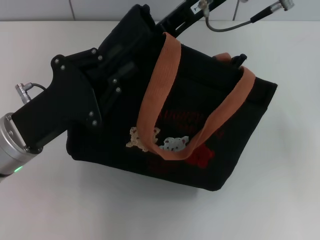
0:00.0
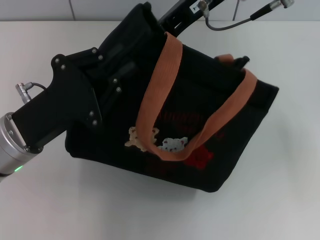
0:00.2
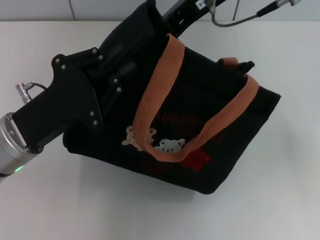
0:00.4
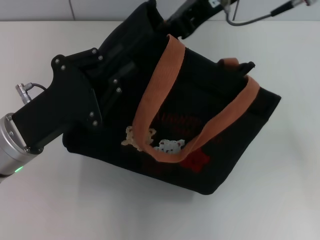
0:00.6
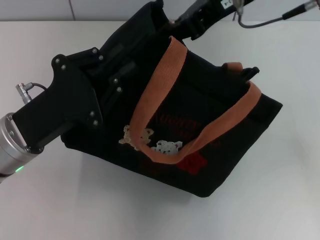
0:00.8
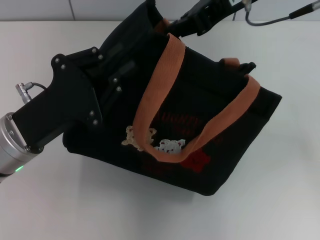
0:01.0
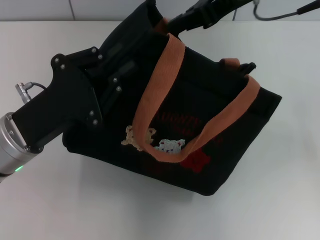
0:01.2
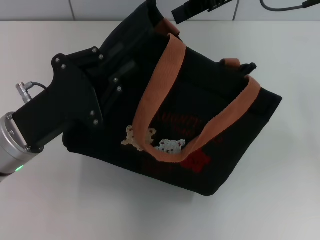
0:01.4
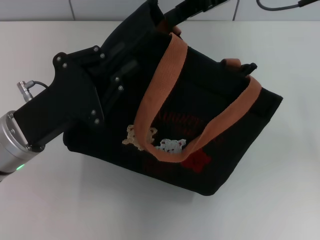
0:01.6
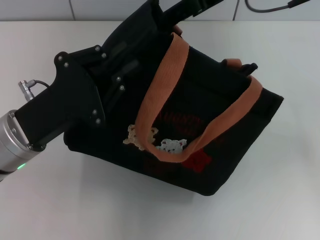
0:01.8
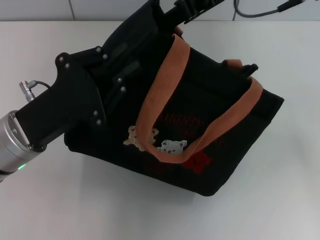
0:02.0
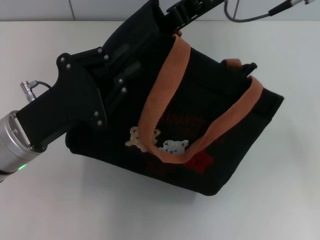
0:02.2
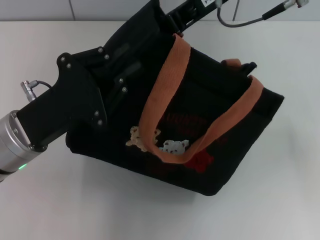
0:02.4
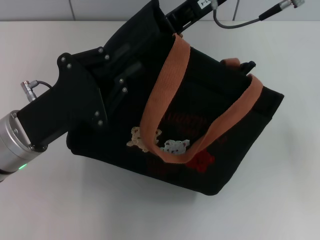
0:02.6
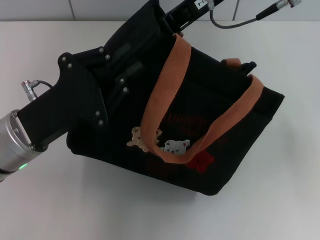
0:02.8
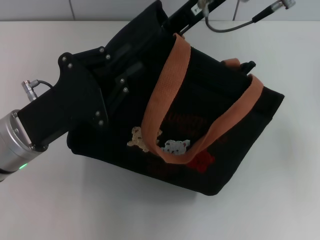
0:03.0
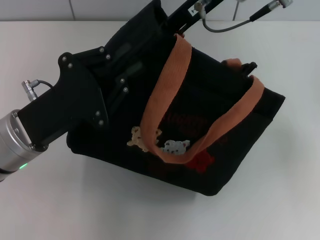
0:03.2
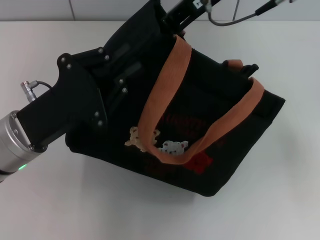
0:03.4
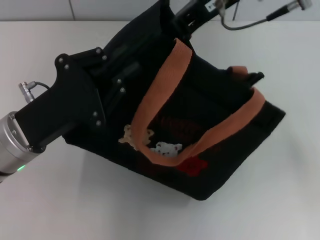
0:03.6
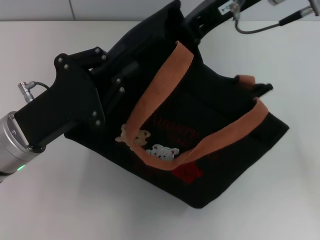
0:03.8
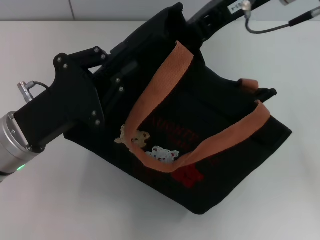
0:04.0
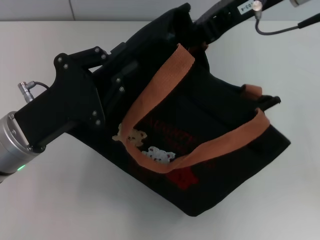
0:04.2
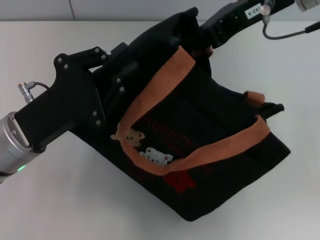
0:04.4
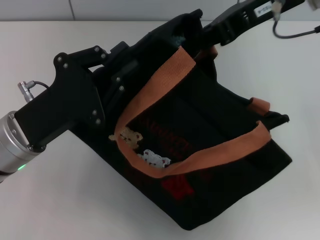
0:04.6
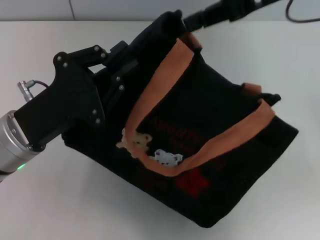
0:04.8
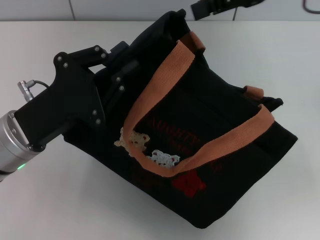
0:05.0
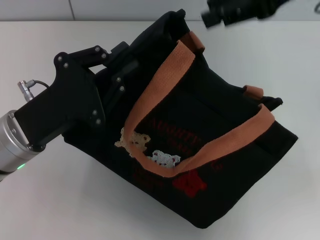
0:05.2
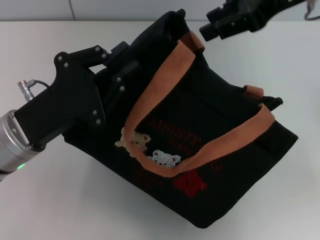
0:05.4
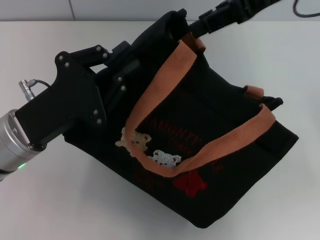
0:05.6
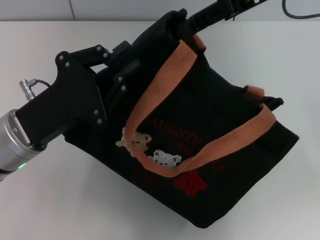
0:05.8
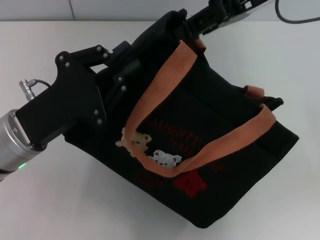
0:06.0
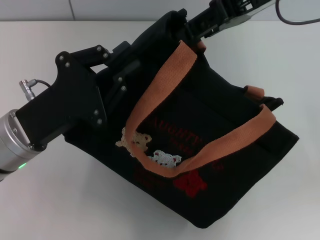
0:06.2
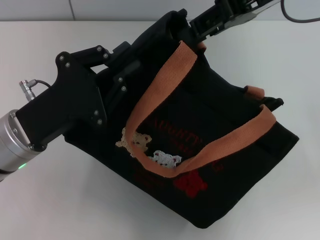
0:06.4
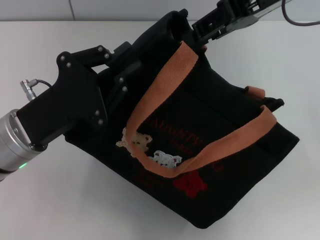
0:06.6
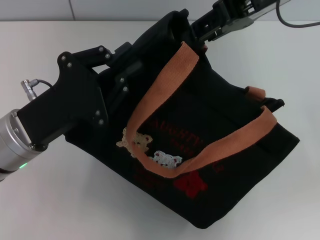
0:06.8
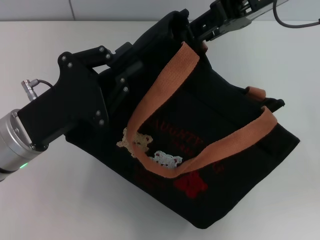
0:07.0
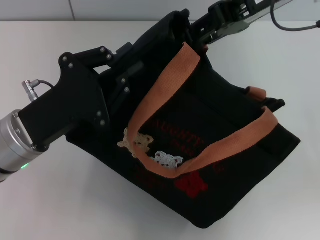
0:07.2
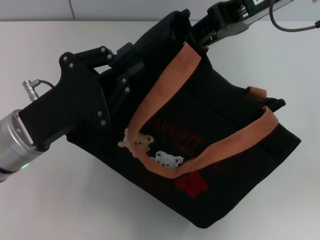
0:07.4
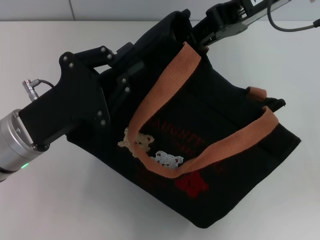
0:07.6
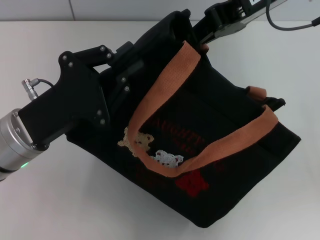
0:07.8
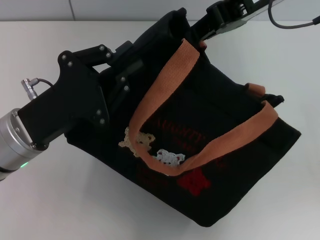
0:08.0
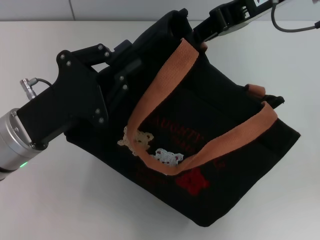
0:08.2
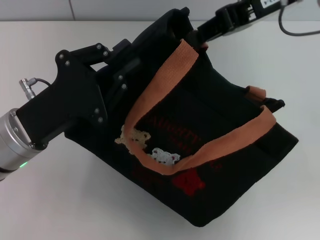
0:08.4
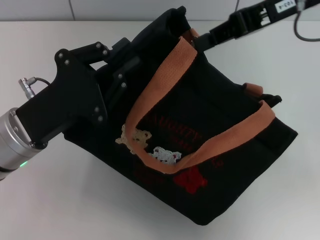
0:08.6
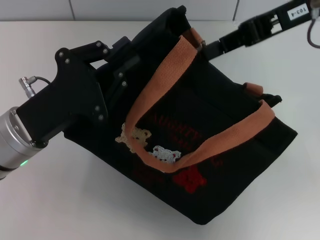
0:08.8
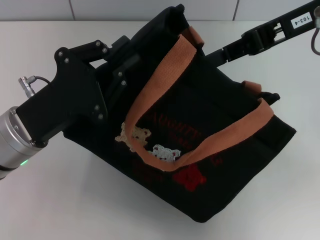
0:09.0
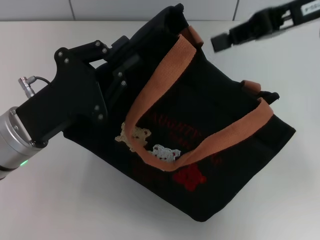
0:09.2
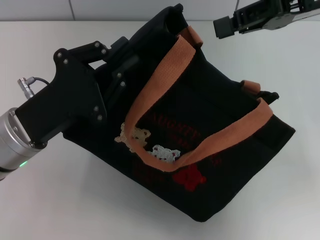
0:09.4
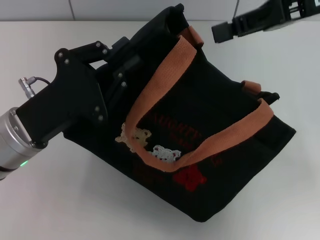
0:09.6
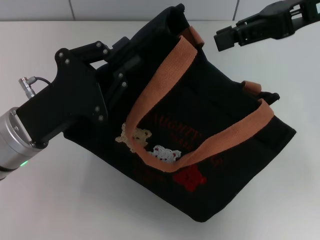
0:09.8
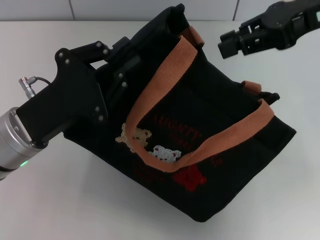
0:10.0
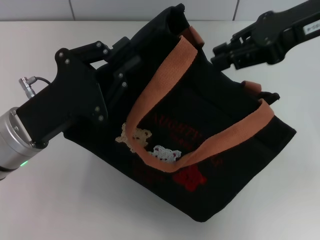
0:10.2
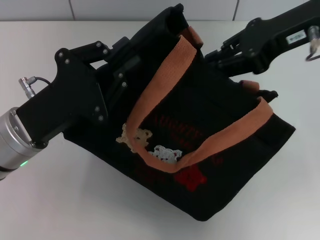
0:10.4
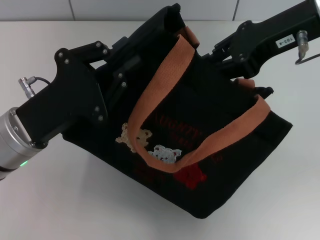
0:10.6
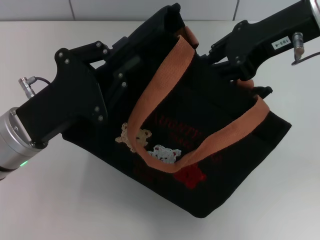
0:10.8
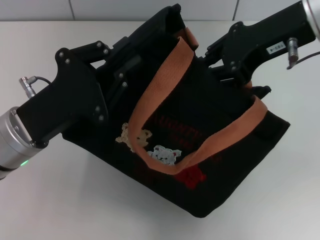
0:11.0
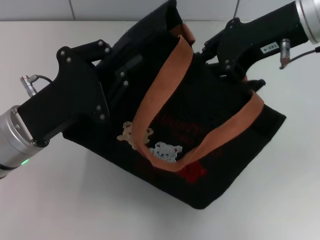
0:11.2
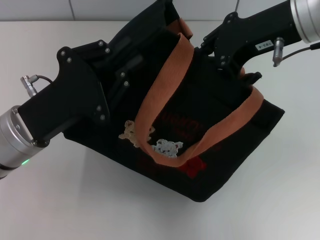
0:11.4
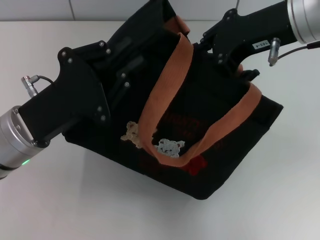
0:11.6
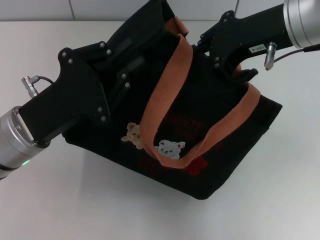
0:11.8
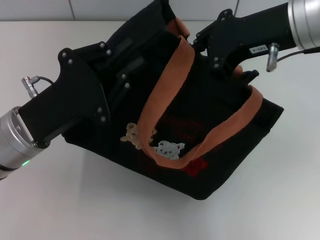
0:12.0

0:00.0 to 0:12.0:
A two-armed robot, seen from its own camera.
0:00.0 to 0:01.6: The right gripper shifts roughly 5 cm to the right.
0:01.6 to 0:03.0: The right gripper is displaced to the left by some 5 cm.
0:03.0 to 0:04.4: The right gripper travels to the right by some 5 cm.
0:04.4 to 0:06.0: The right gripper opens up.
0:06.0 to 0:07.6: The grippers stay close to where they were, moving slightly.
0:07.6 to 0:09.0: The right gripper moves about 5 cm.

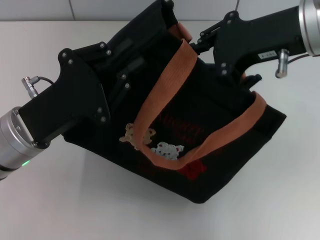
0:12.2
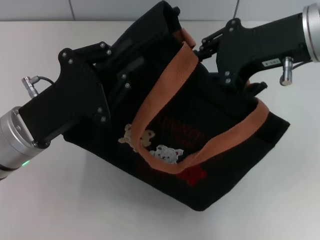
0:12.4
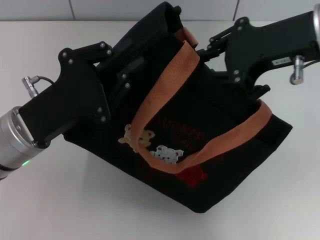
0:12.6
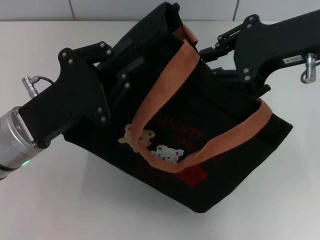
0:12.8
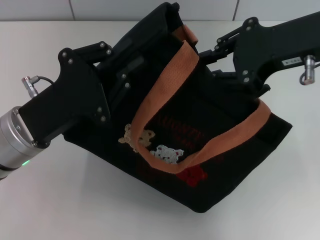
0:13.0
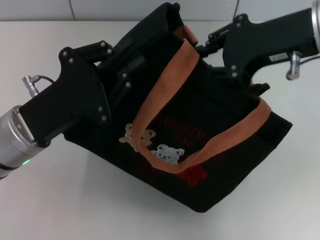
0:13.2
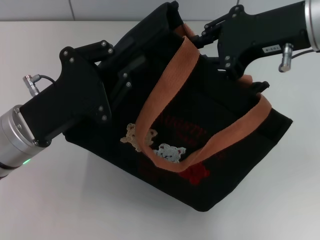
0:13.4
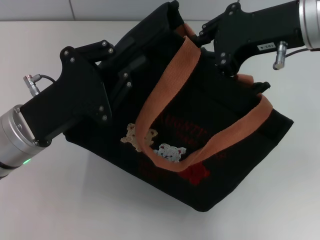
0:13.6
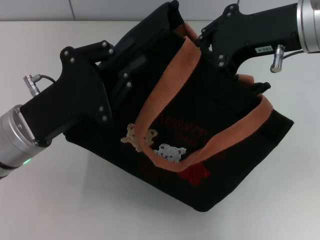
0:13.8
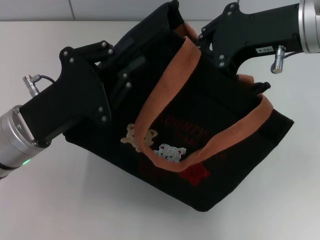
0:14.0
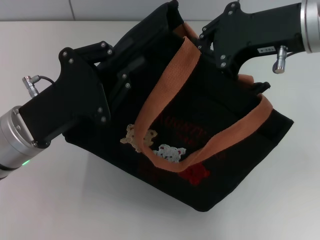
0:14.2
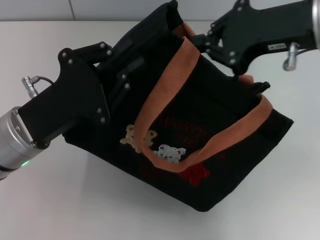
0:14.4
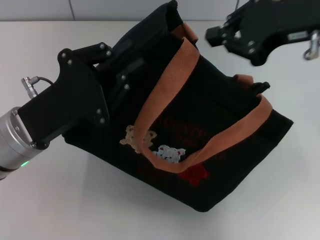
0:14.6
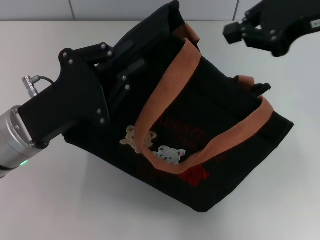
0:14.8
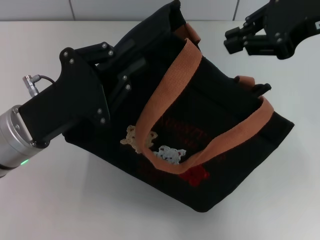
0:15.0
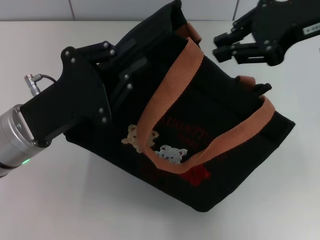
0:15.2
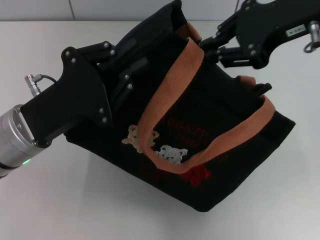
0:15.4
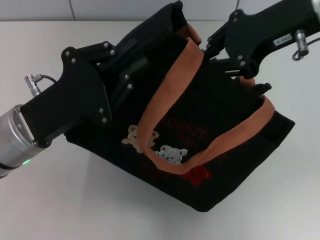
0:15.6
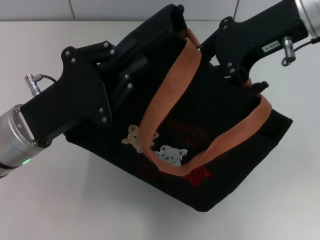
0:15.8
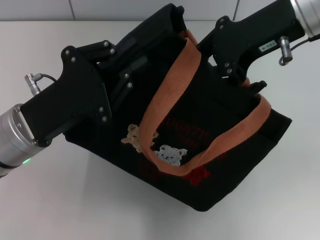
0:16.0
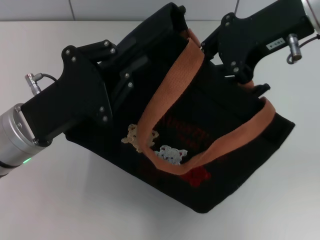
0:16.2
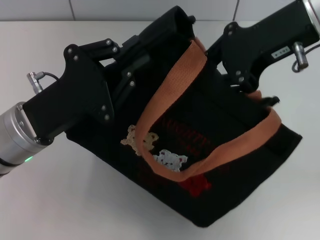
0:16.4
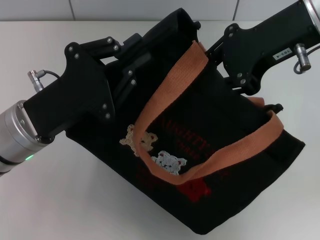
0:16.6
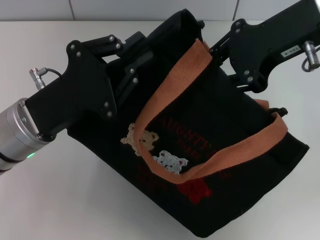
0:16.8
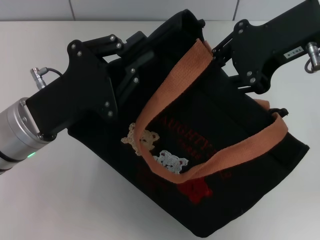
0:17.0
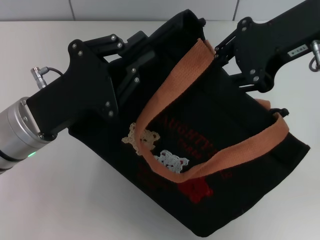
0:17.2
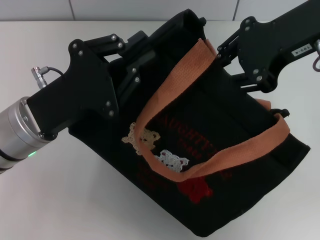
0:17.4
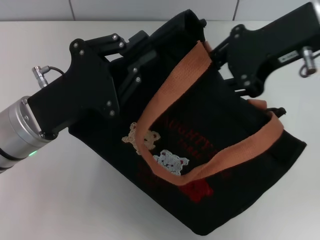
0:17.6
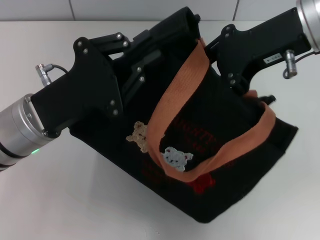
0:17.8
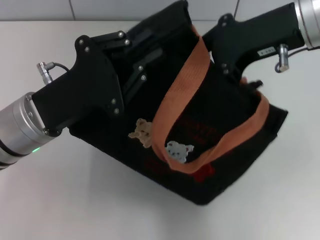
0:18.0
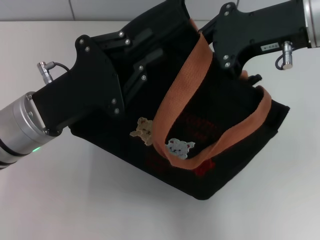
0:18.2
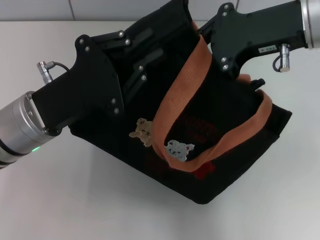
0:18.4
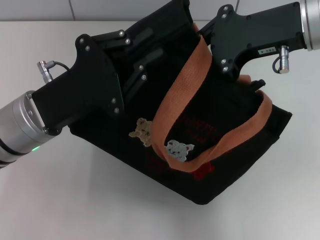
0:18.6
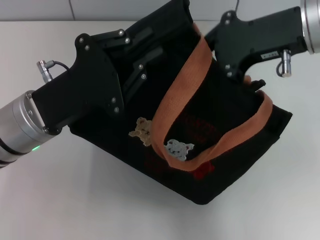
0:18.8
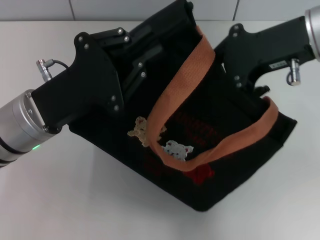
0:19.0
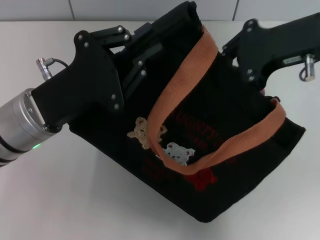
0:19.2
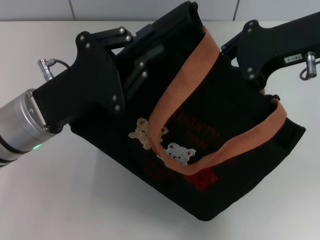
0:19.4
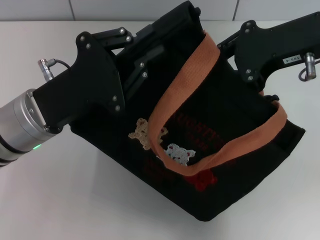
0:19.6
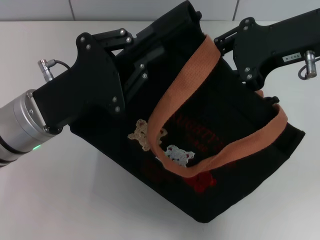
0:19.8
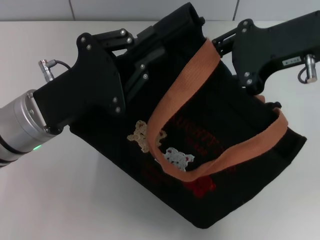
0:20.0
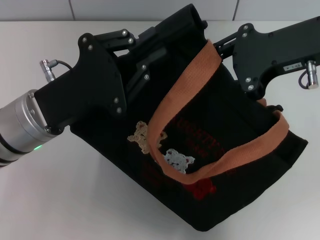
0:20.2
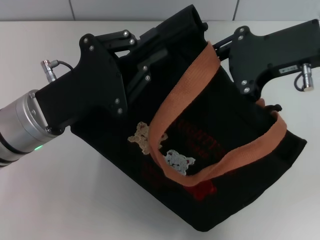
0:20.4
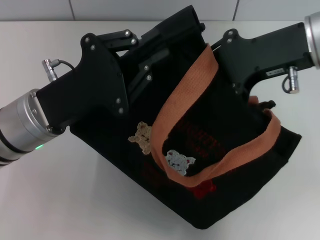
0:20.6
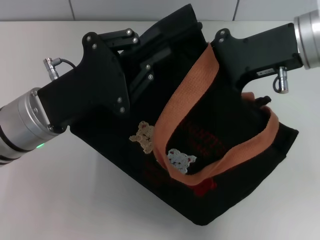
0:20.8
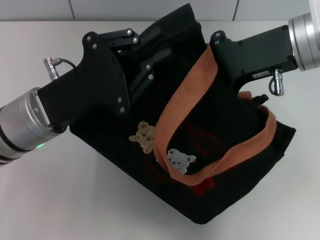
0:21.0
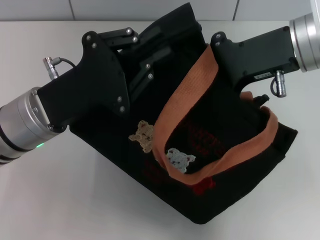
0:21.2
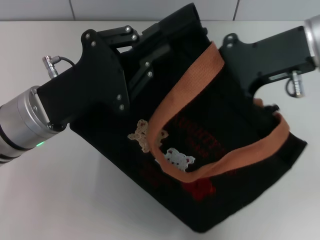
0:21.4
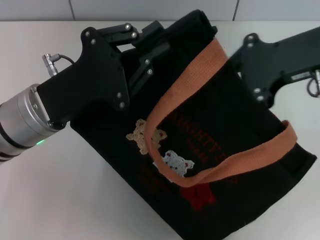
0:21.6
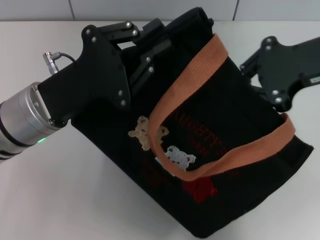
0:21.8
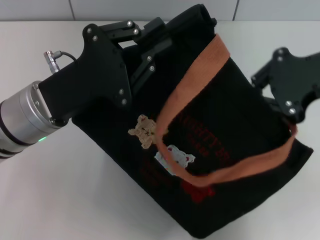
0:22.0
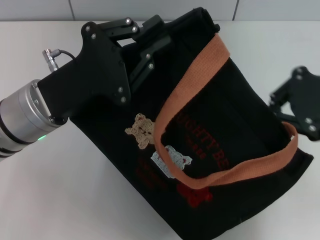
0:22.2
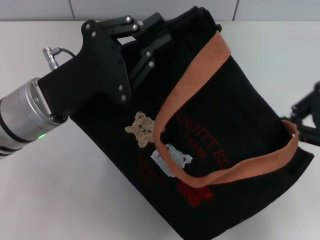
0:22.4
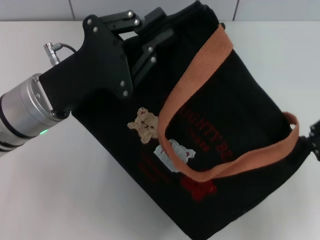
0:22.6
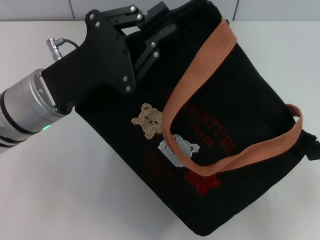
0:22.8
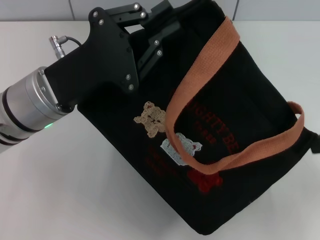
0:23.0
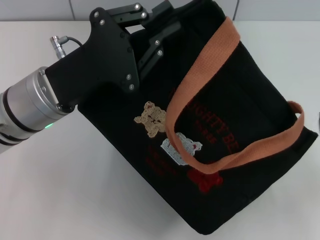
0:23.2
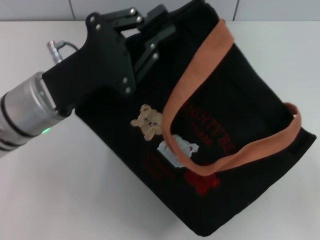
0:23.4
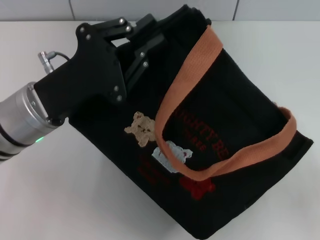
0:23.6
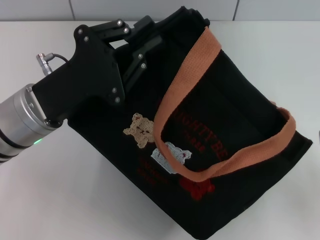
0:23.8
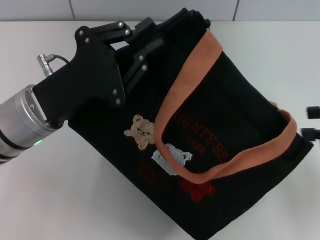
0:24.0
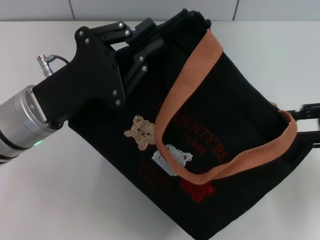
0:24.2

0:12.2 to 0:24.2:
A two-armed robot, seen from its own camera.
Step, 0:12.2 to 0:23.0: Pull open the zipper with your right hand.
0:12.2 to 0:13.8: The grippers stay close to where they were, moving slightly.
0:13.8 to 0:15.2: The right gripper changes place by some 5 cm.
0:19.8 to 0:21.2: The grippers stay close to where they were, moving slightly.
0:21.2 to 0:22.6: The right gripper heads to the right and backward, covering approximately 15 cm.
0:22.6 to 0:24.2: The right gripper is displaced downward by roughly 5 cm, and opens up.
